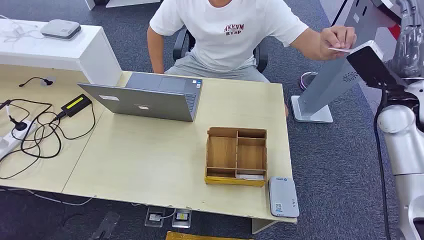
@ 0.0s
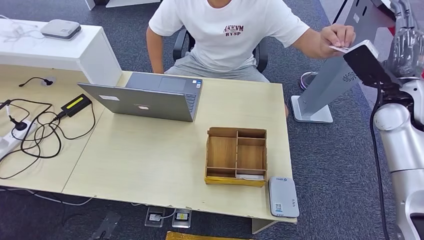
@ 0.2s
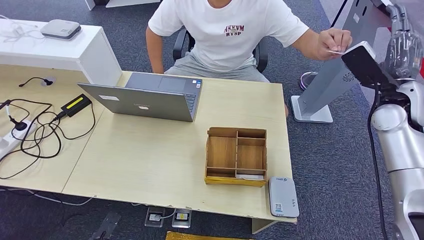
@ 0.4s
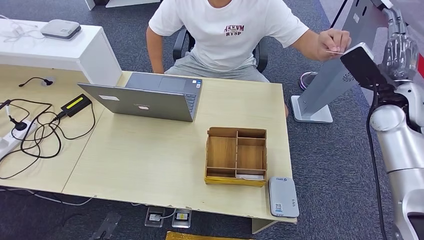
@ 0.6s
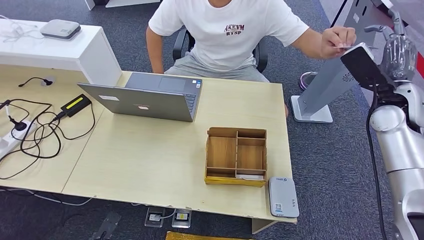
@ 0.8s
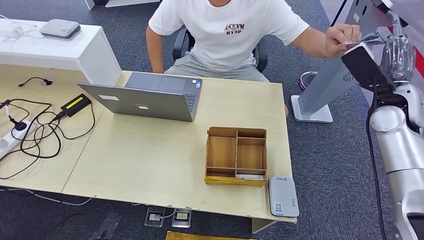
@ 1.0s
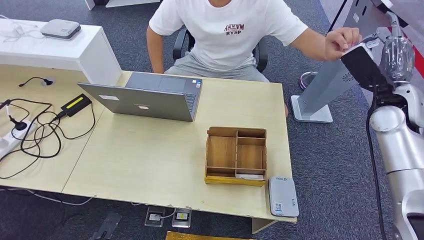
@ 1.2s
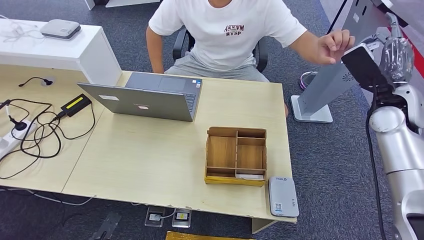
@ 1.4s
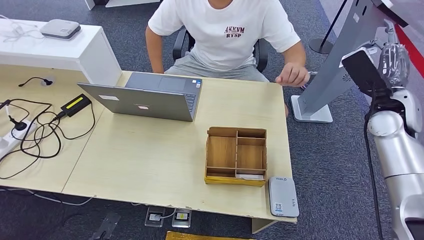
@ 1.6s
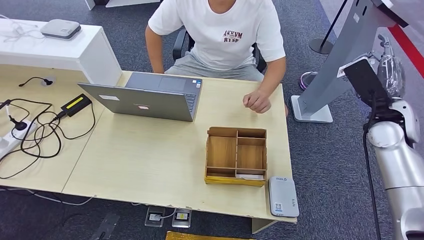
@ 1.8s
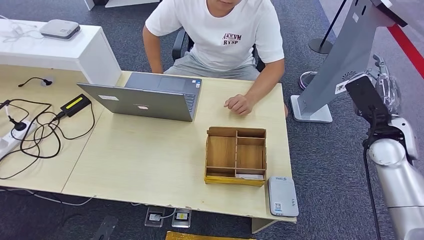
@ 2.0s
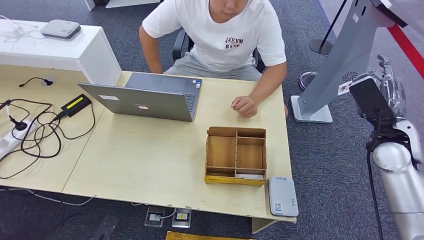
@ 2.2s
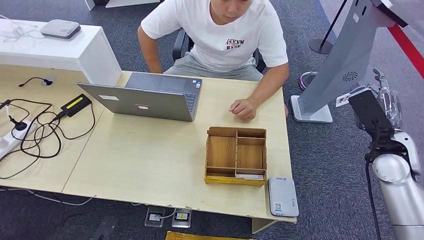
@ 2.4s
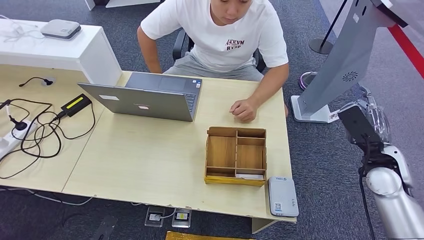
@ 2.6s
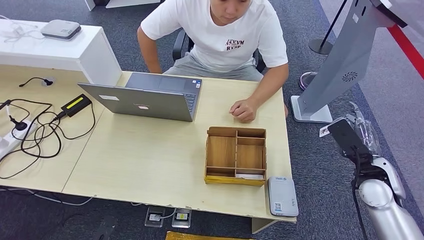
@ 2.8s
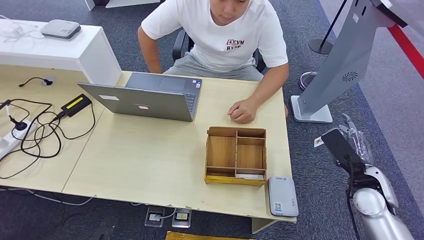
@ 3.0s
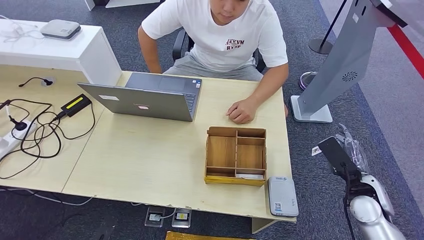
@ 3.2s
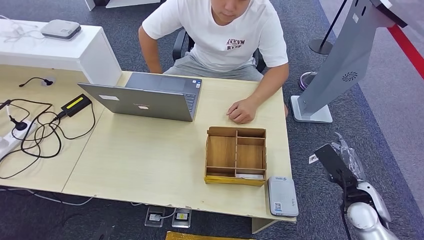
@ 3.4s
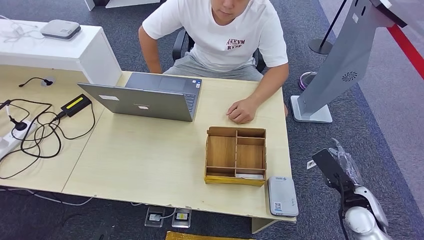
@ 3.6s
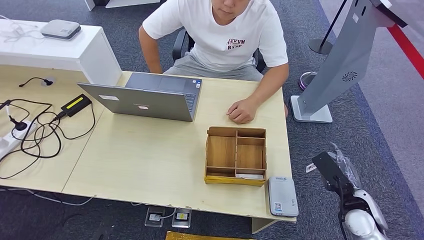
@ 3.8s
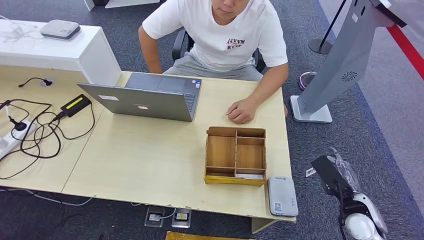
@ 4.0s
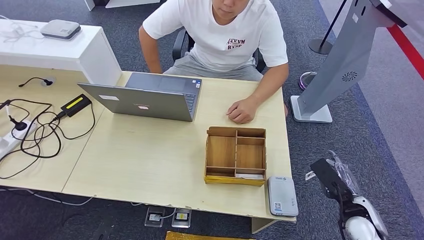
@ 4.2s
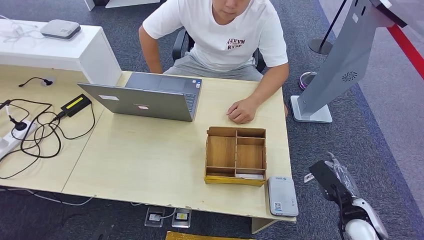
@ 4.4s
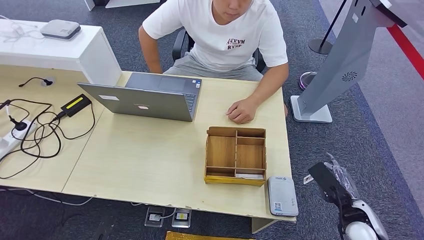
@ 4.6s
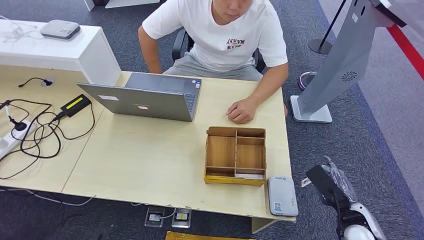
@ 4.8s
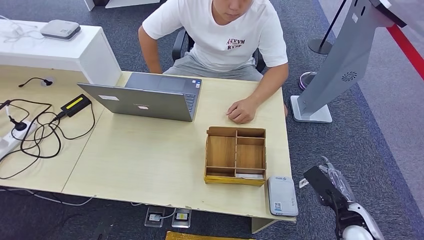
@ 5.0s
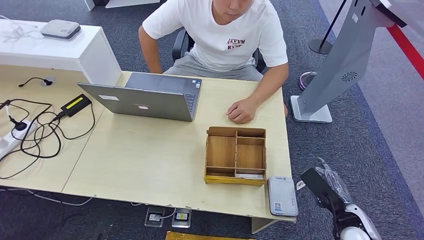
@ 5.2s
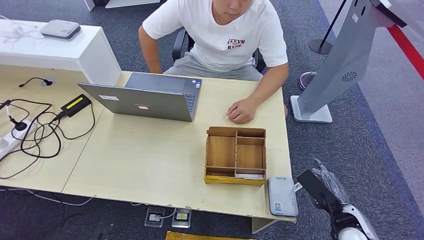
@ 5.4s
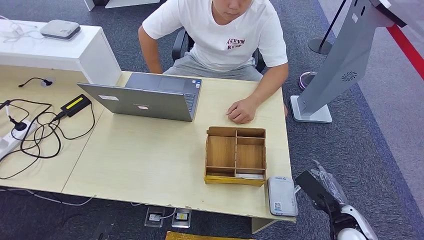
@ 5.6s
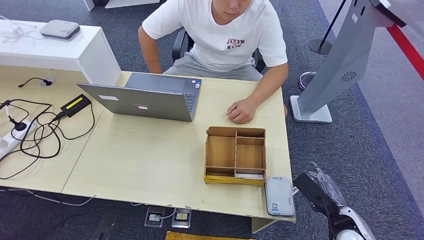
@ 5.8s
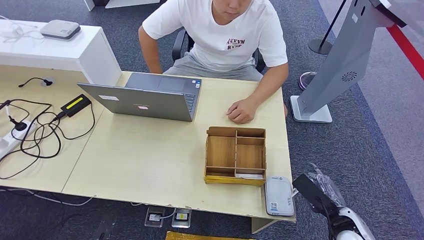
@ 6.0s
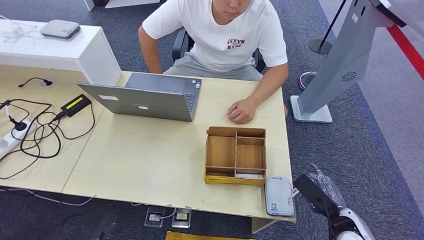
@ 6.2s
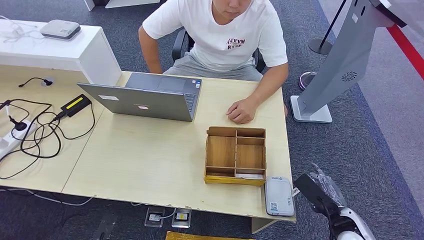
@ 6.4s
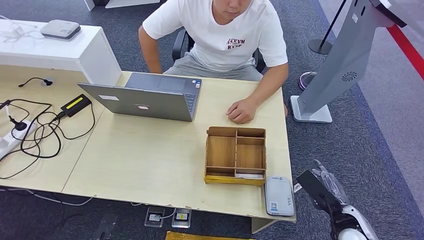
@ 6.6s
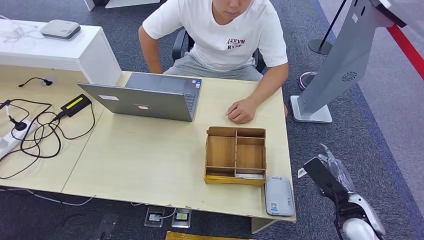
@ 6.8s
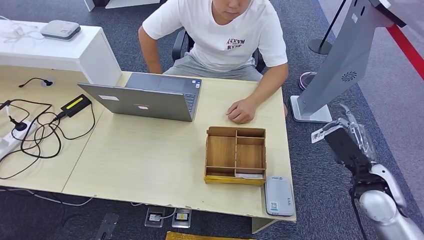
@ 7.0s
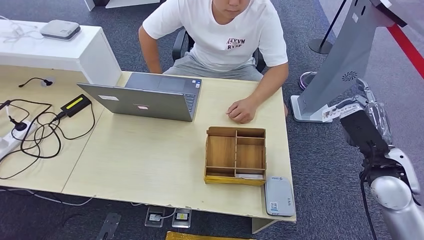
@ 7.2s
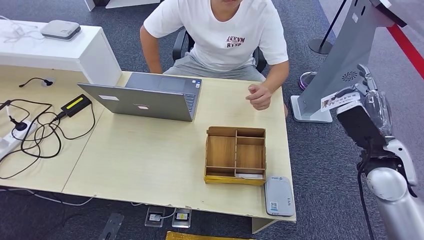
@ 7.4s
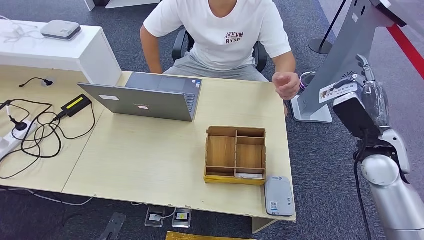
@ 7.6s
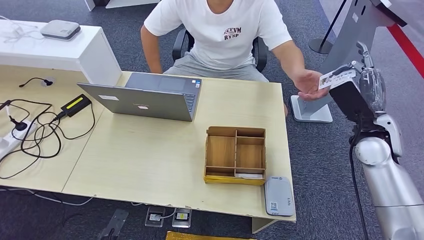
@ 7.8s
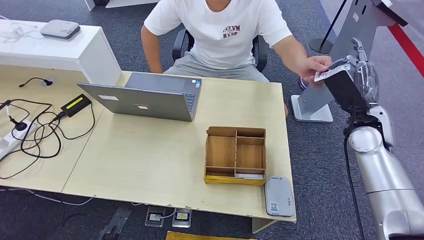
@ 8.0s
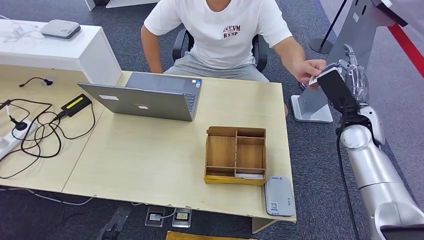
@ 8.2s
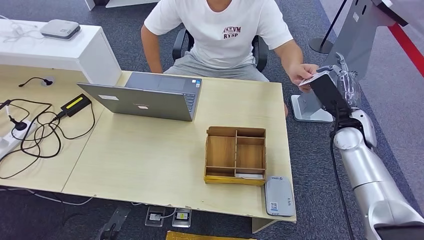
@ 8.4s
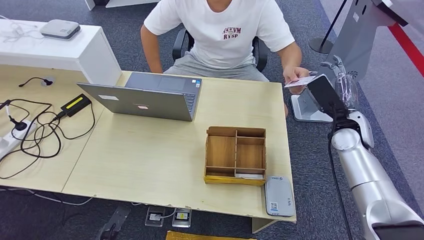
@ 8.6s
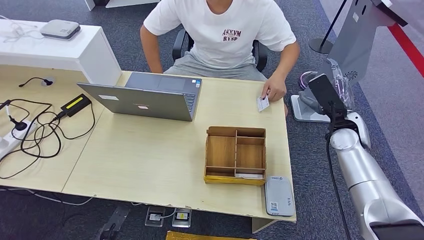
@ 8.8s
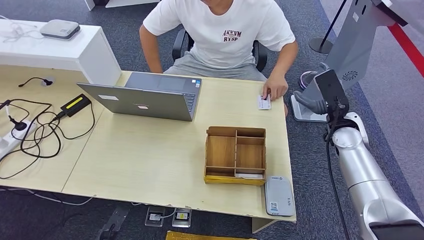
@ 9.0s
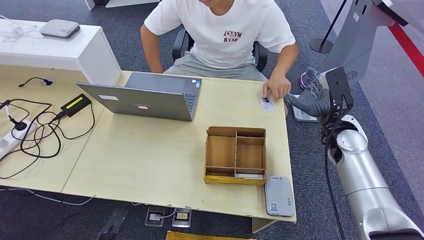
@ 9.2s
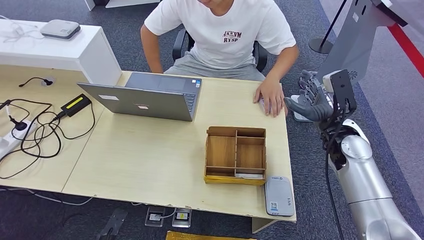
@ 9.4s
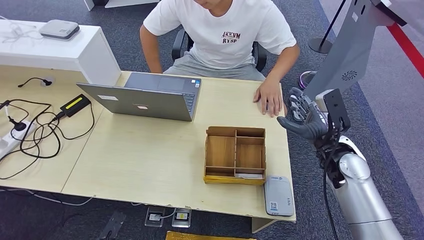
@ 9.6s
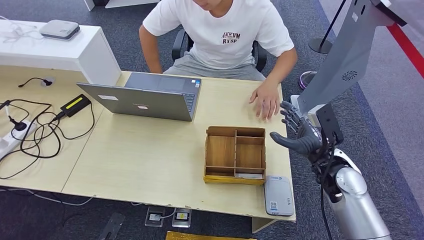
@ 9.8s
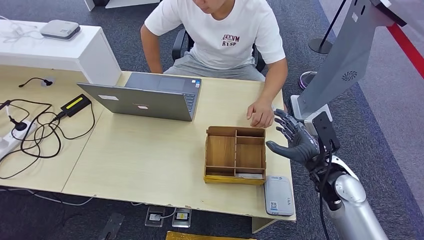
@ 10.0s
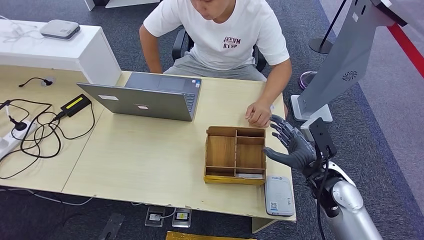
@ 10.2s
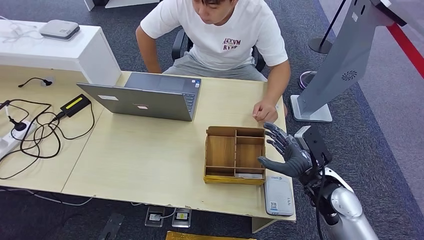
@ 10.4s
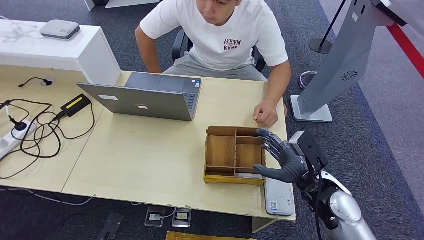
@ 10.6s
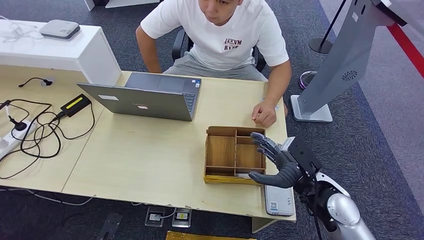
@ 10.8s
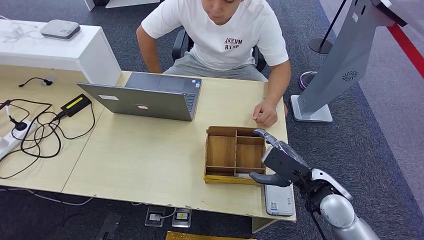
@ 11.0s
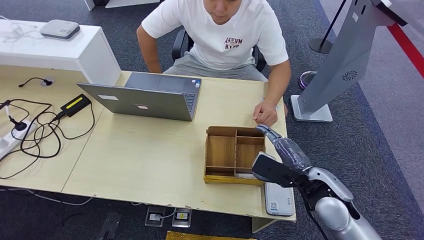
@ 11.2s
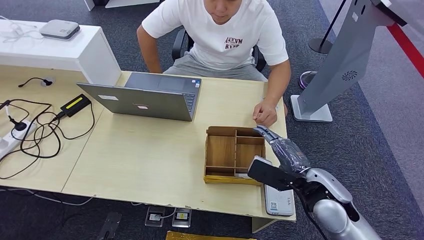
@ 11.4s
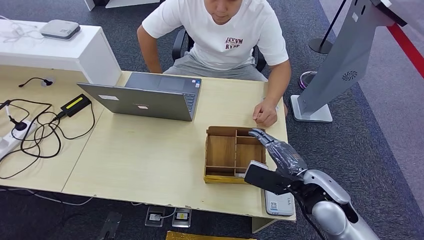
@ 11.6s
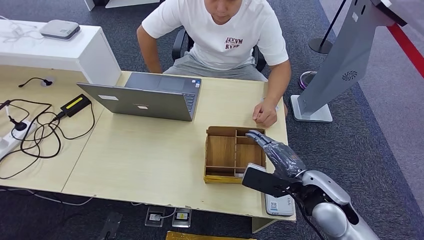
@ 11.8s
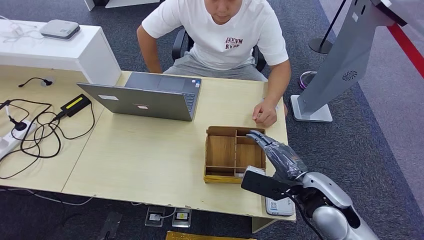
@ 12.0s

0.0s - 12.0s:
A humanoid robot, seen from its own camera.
Step, 0.0s - 1.6s: Take the ID card from the person's hand.
Step, 1.8s - 5.8s: Place the ID card on the card reader.
Step, 6.2s - 8.8s: Hand the ID card to the person.
1.6s - 3.0s: The right hand travels downward and backward by roughly 20 cm.
3.0s - 4.4s: The right hand is displaced downward and backward by about 10 cm.
4.4s - 6.0s: The hands stay close to where they were, moving slightly.
6.0s - 7.6s: The right hand travels upward and forward by some 20 cm.
7.6s - 9.0s: The right hand heads forward, covering approximately 10 cm.
9.0s - 10.4s: The right hand moves backward, to the left and downward, some 15 cm.
10.4s - 12.0s: The right hand ends up some 5 cm from where it was.

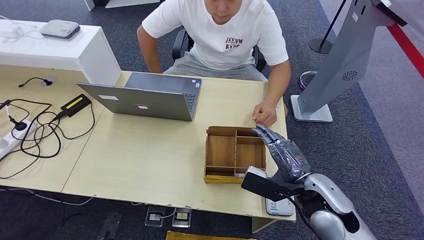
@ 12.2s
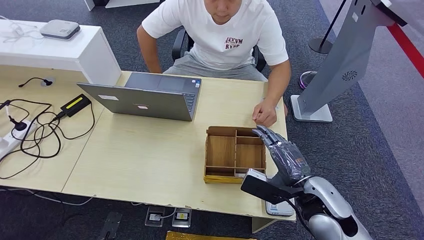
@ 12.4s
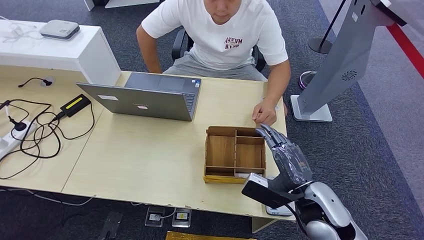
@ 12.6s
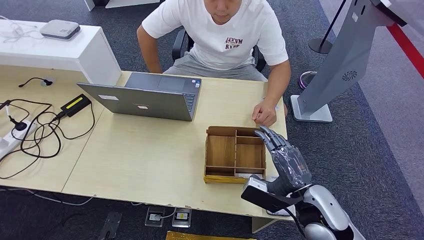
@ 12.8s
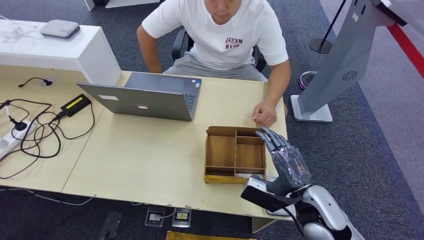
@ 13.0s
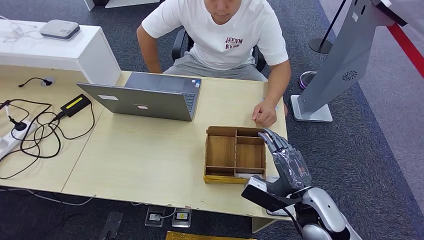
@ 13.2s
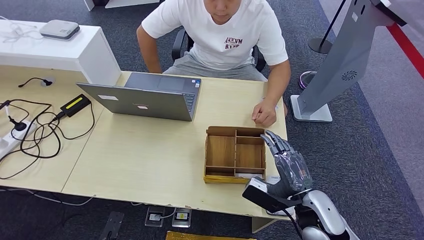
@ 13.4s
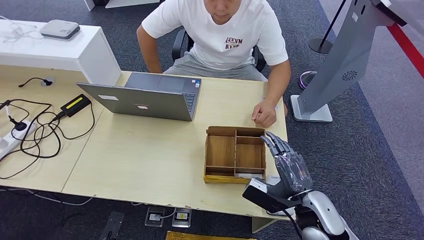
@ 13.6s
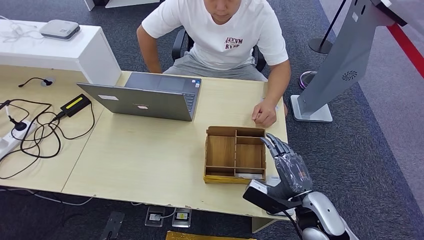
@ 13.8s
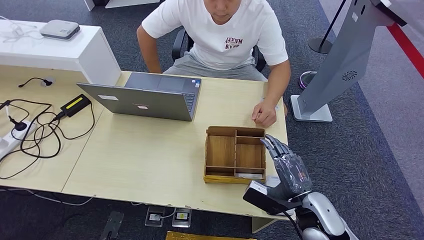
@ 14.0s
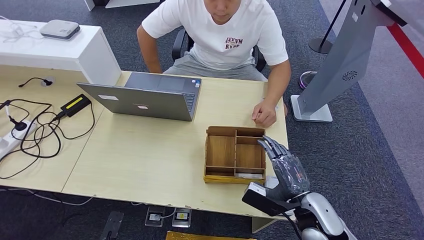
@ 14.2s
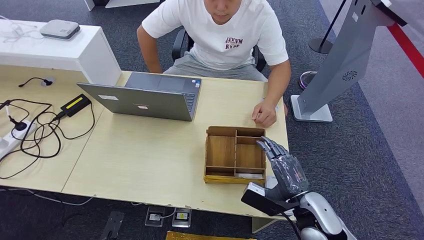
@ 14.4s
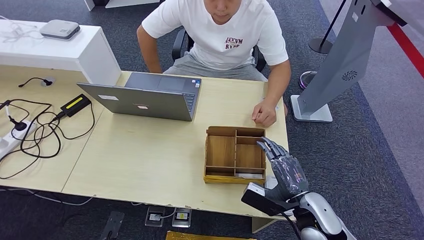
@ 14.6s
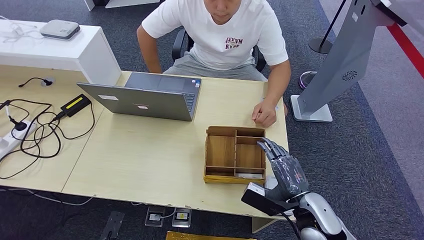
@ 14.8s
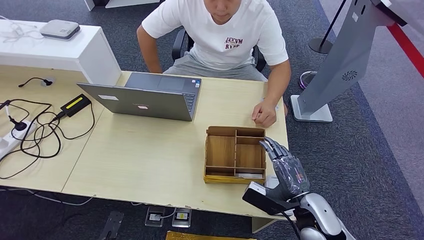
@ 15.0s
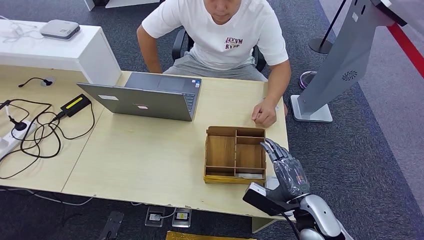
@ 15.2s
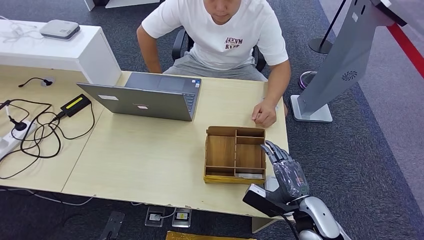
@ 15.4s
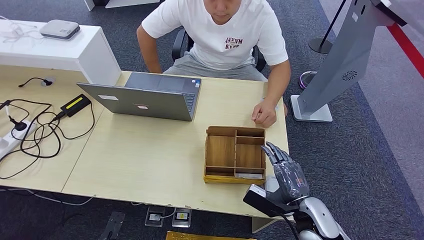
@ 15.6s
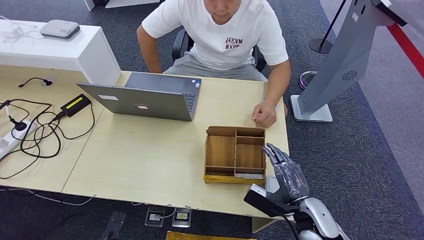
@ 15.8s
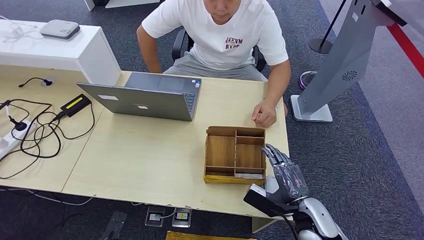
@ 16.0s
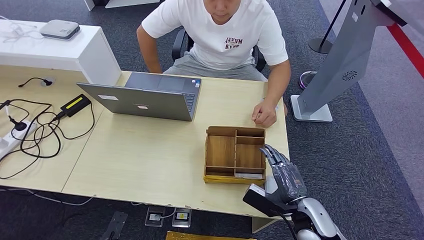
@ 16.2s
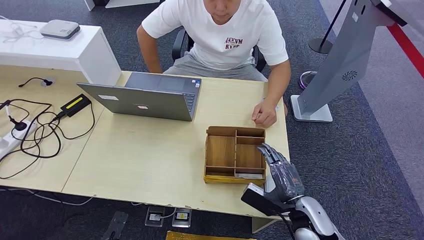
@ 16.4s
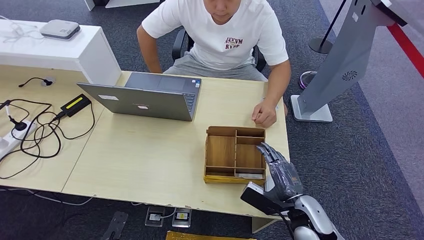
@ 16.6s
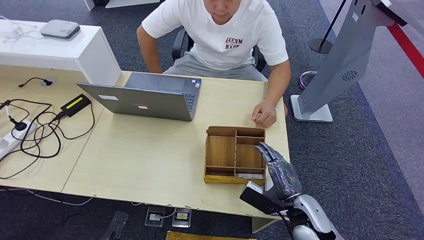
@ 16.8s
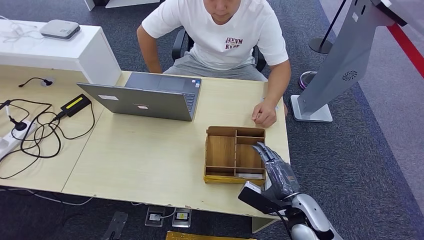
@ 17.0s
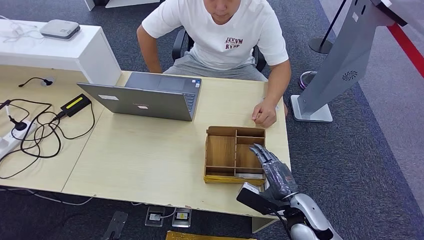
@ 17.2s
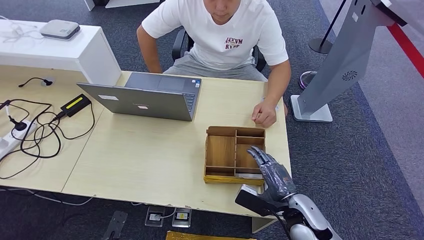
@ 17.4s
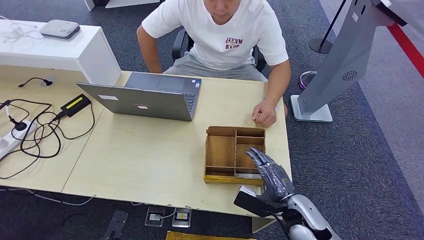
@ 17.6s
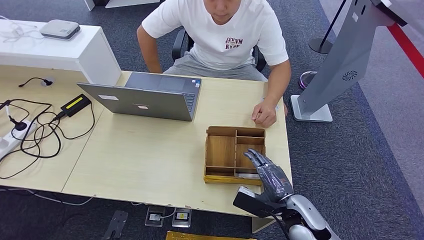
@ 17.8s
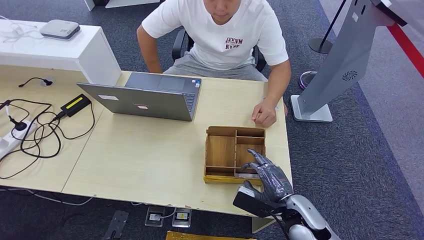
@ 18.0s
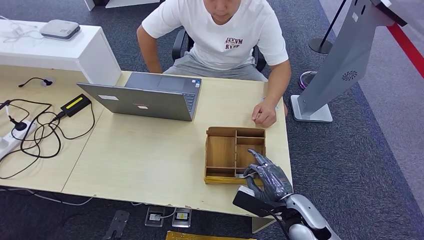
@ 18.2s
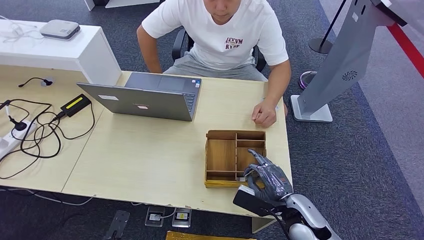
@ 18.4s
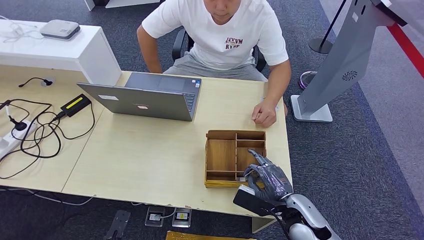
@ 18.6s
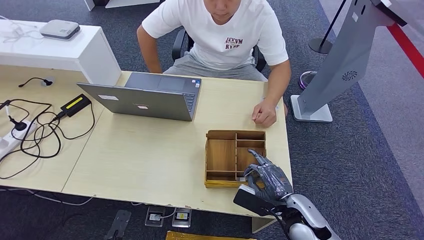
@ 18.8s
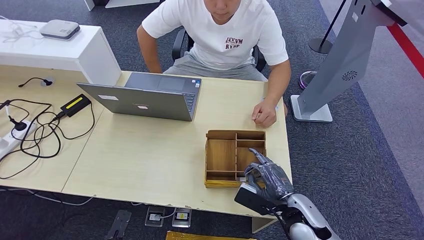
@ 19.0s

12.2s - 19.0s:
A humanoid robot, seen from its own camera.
12.2s - 13.6s: The right hand goes approximately 5 cm downward.
13.6s - 17.6s: There are only small adjustments of the hands.
17.6s - 19.0s: Neither hand changes place.
